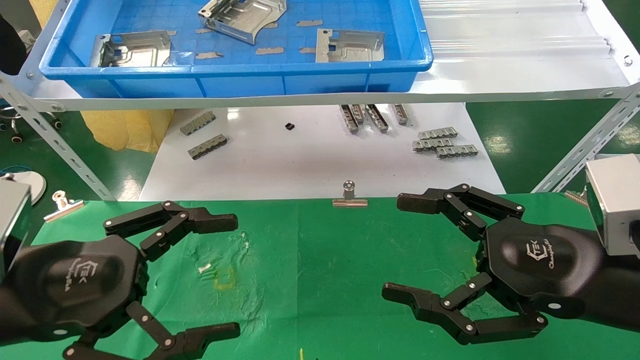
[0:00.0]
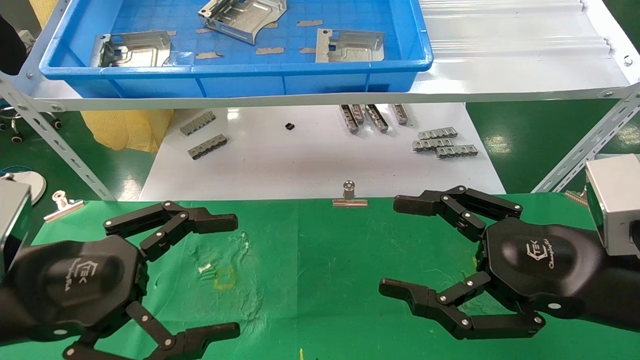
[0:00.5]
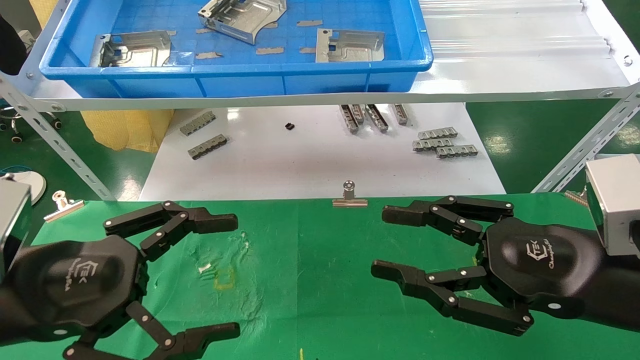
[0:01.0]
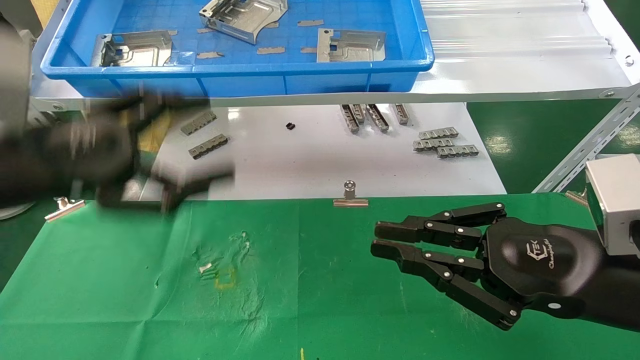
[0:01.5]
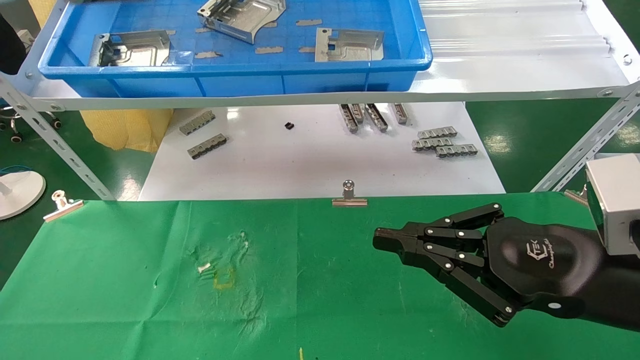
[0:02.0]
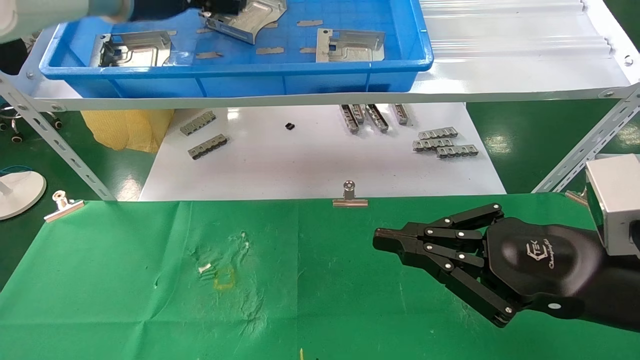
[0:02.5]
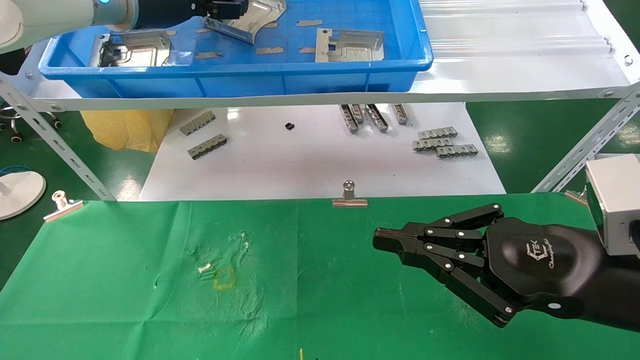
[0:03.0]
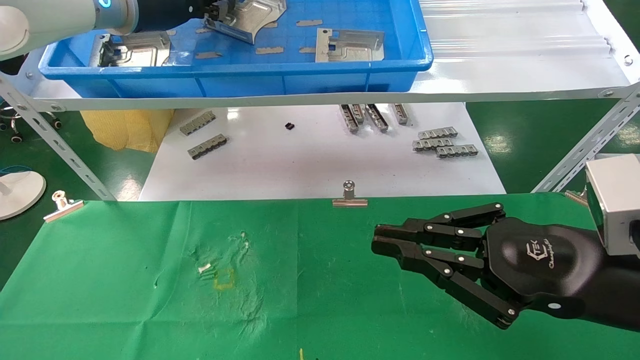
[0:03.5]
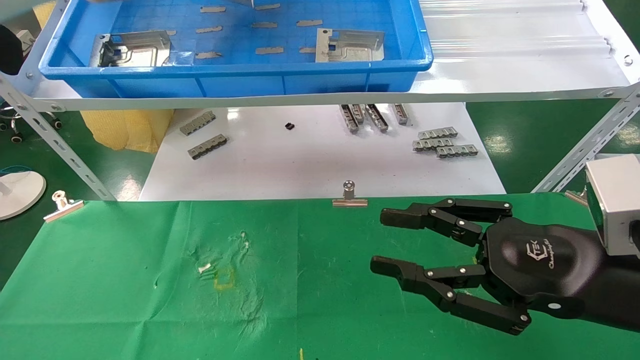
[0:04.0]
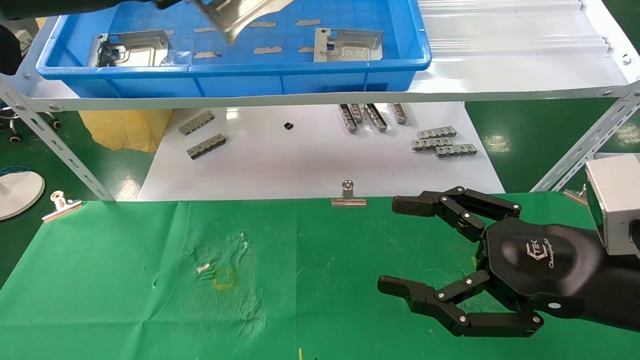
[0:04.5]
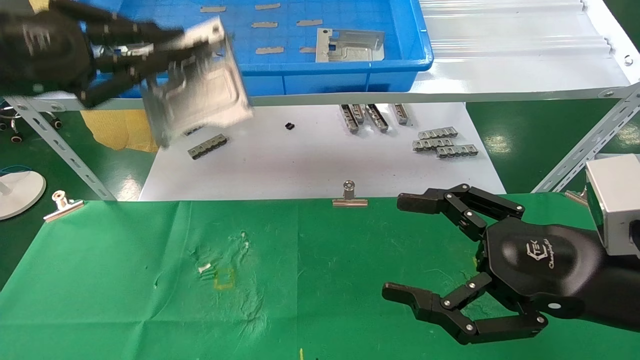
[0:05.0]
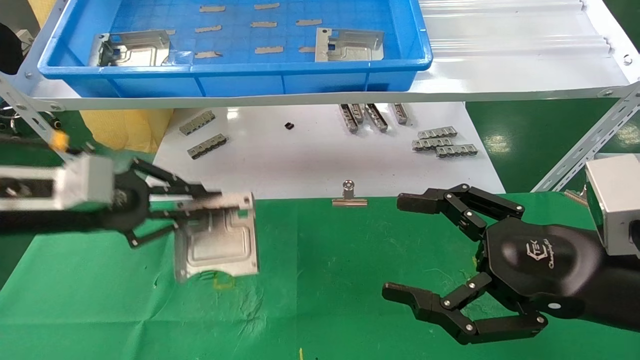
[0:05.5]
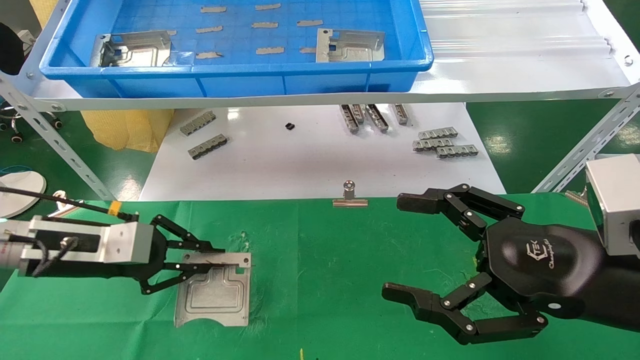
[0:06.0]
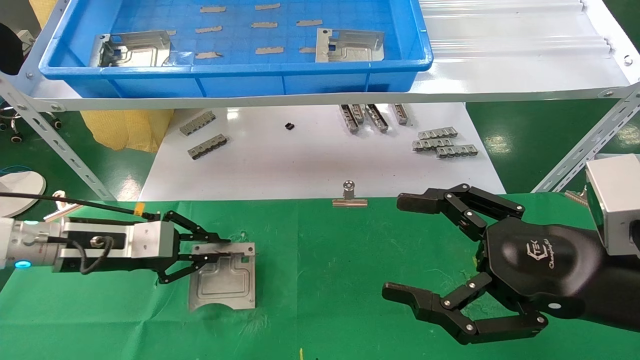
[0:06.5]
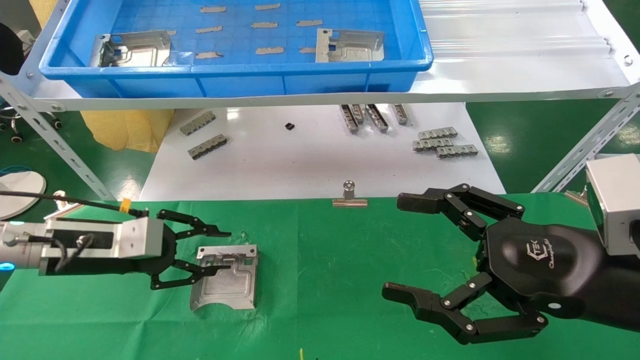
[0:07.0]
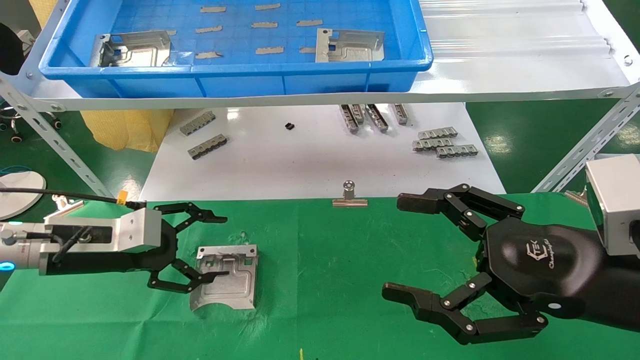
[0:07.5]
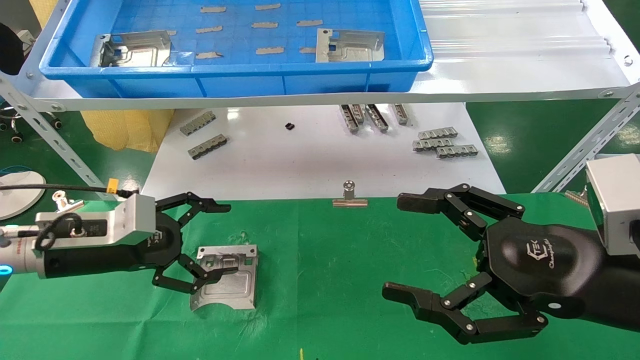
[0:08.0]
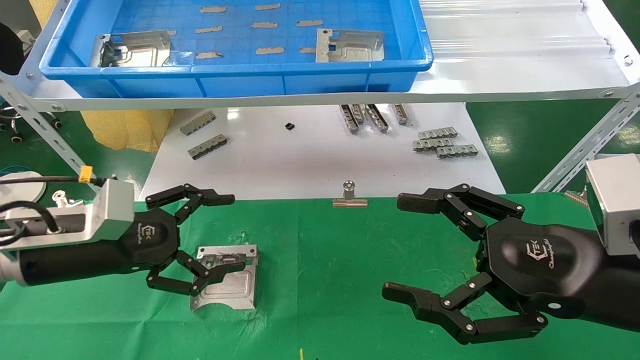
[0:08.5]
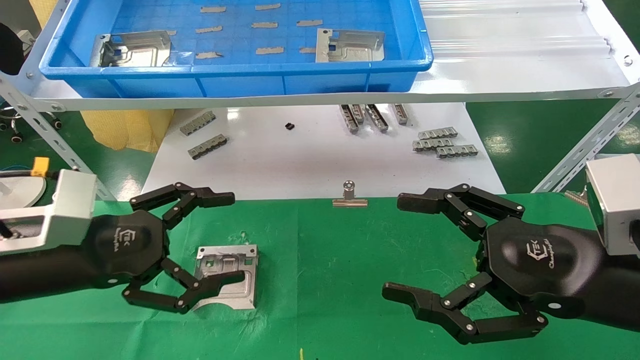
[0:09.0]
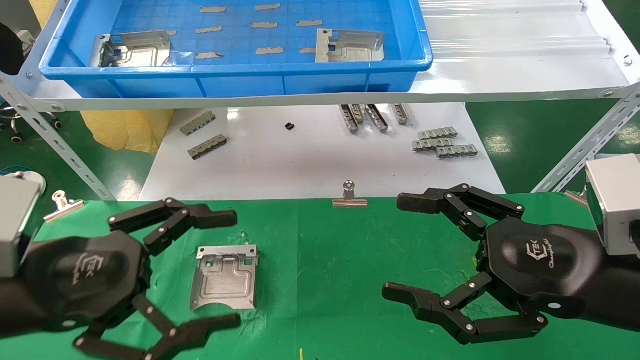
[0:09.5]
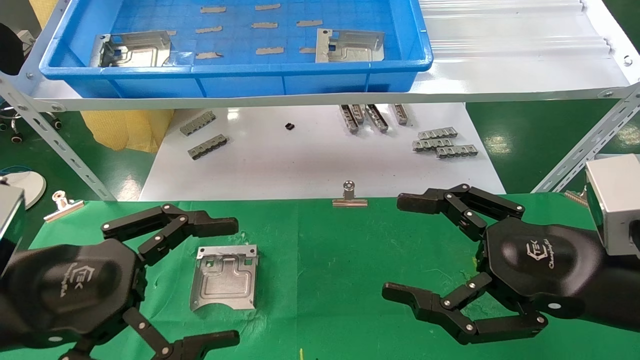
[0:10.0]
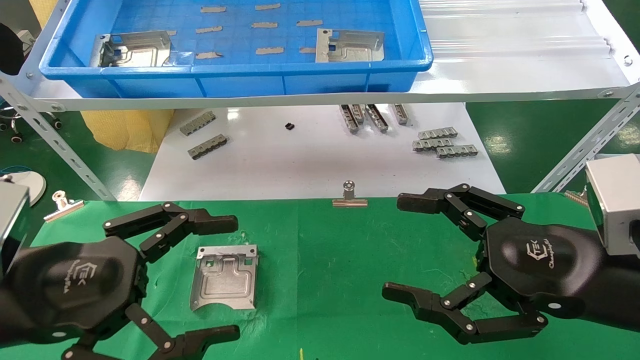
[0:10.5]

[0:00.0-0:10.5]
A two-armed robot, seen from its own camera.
Task of the whole recording: use the mechanical arm to pick up the parts and place them on the table.
Step, 0:02.0 to 0:03.5: Pick up the hard drive bracket from the feeding area.
Step, 0:04.0 to 0:07.0: Place the hard drive bracket into the box.
0:00.0 to 0:02.0: The right gripper closes; the left gripper moves upward and forward, some 30 cm.
0:02.0 to 0:04.0: The left gripper closes.
0:04.0 to 0:06.5: The left gripper is displaced downward by about 30 cm, while the right gripper opens its fingers.
0:06.5 to 0:08.5: The left gripper moves backward, approximately 5 cm, and opens its fingers.
0:08.5 to 0:10.5: The left gripper shifts roughly 10 cm backward.
